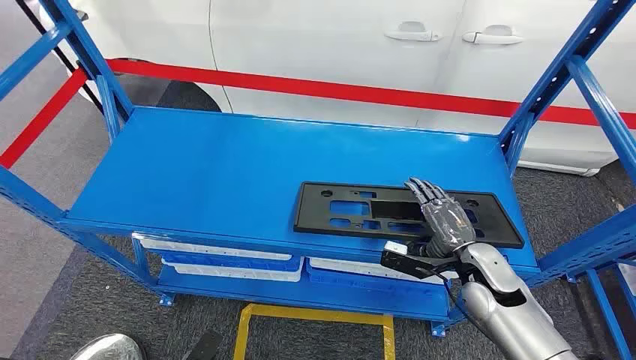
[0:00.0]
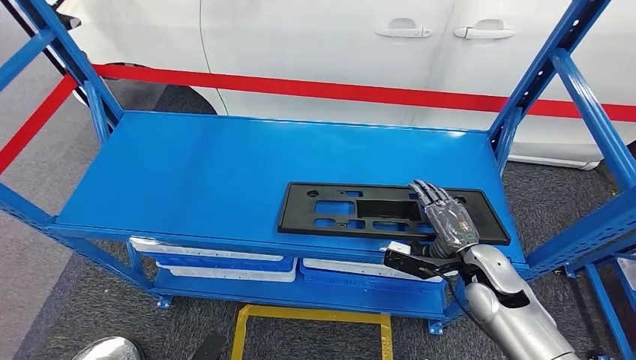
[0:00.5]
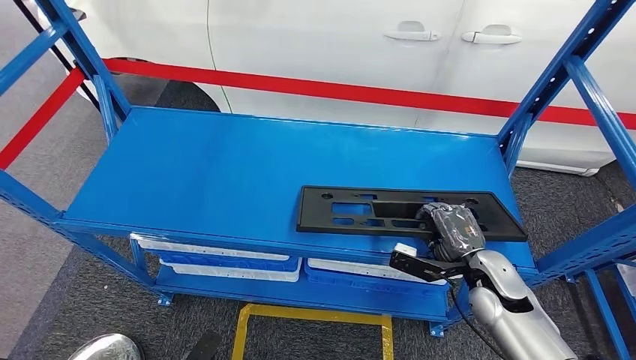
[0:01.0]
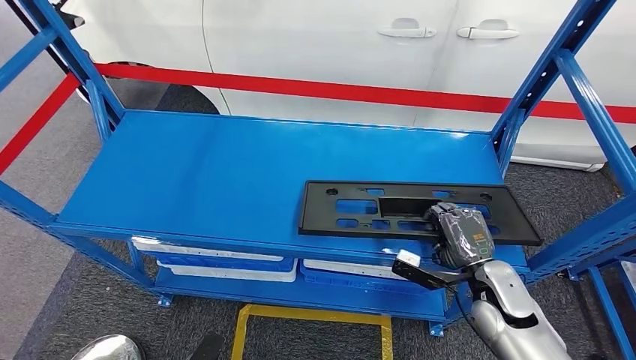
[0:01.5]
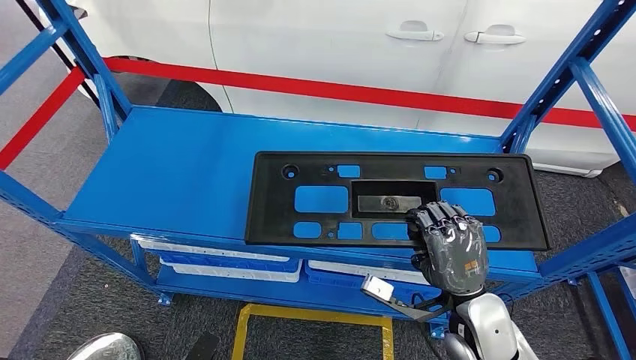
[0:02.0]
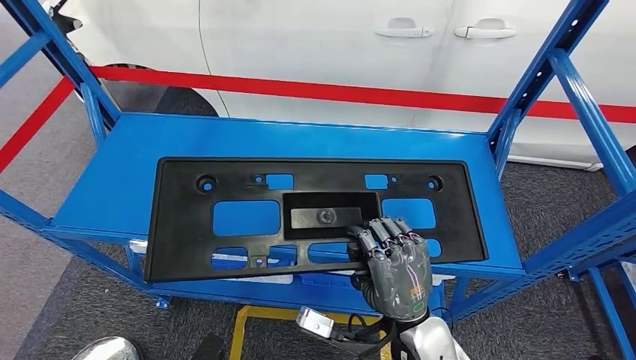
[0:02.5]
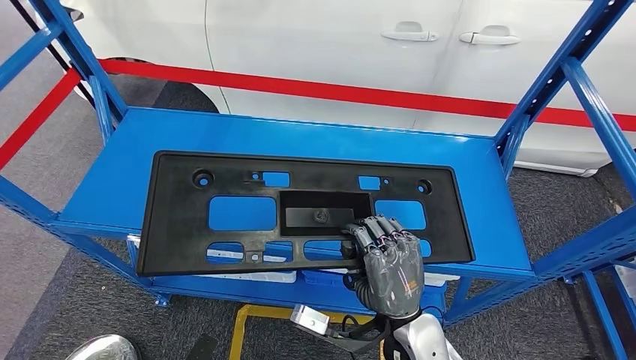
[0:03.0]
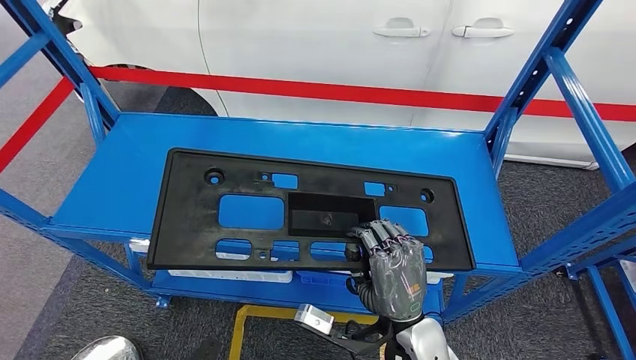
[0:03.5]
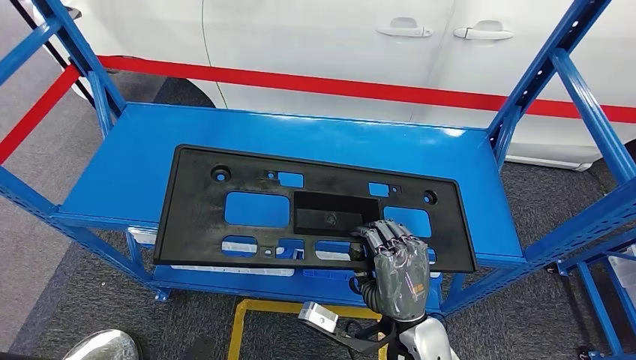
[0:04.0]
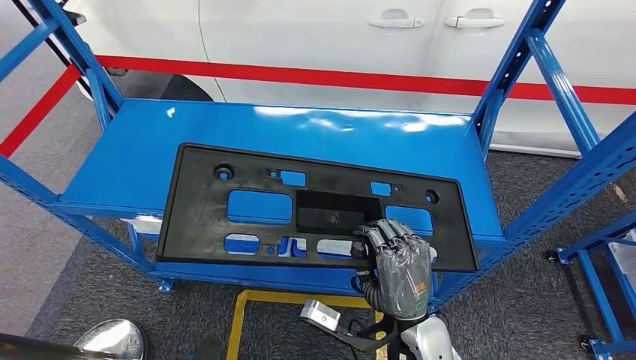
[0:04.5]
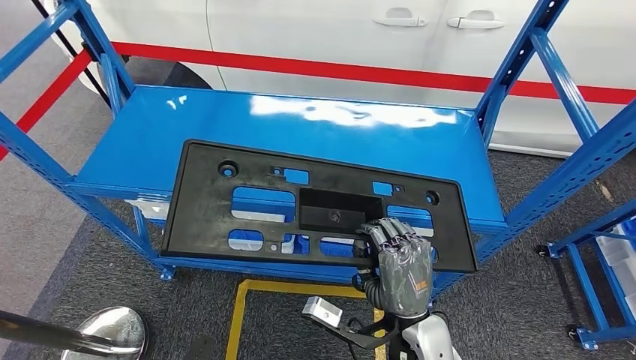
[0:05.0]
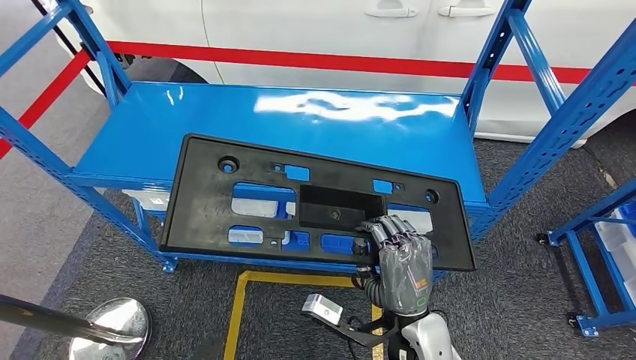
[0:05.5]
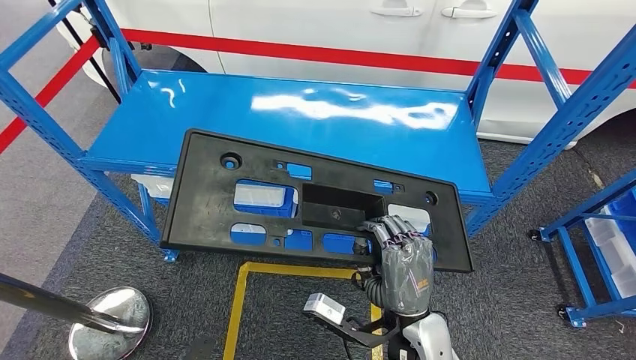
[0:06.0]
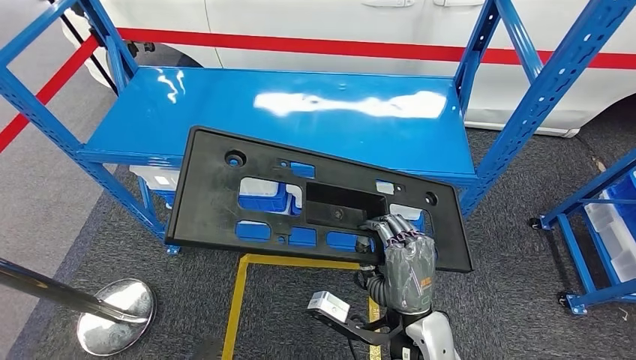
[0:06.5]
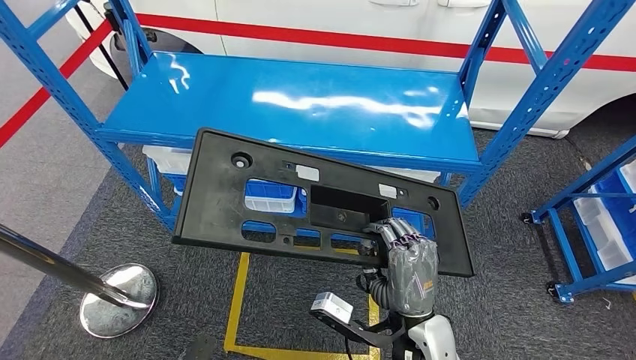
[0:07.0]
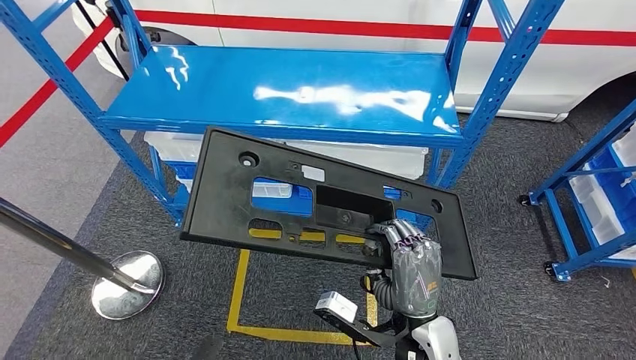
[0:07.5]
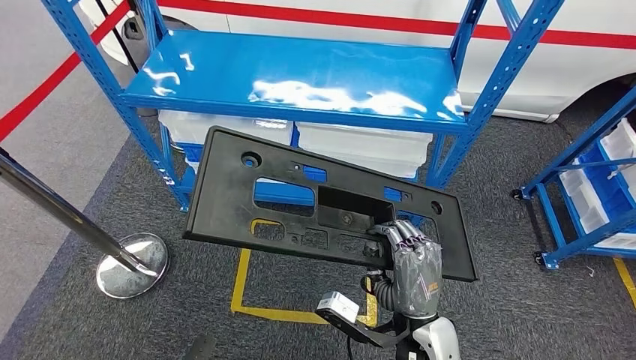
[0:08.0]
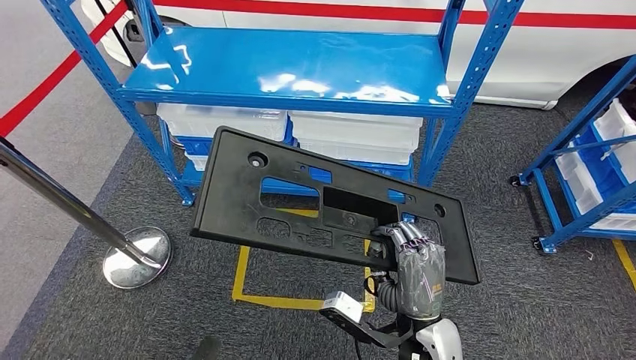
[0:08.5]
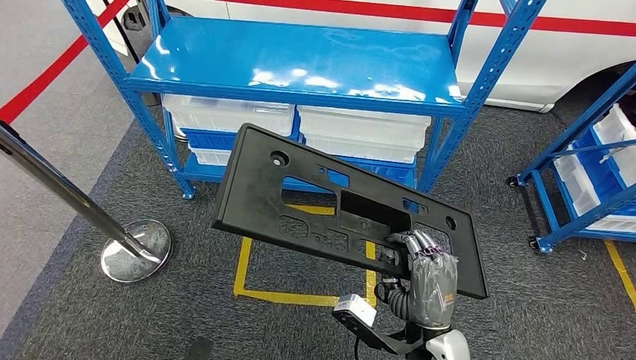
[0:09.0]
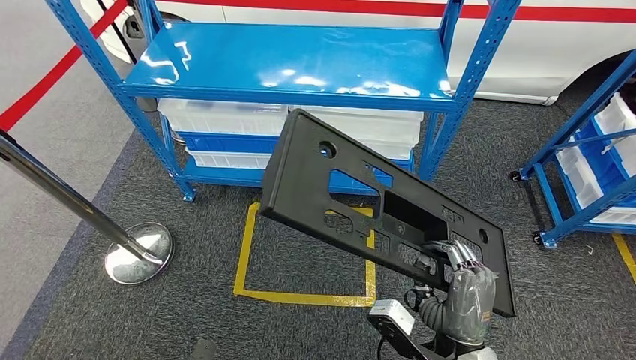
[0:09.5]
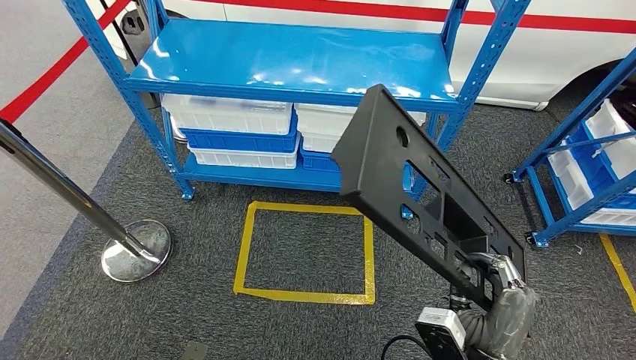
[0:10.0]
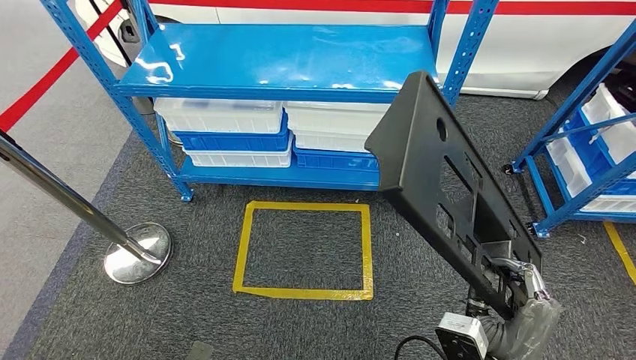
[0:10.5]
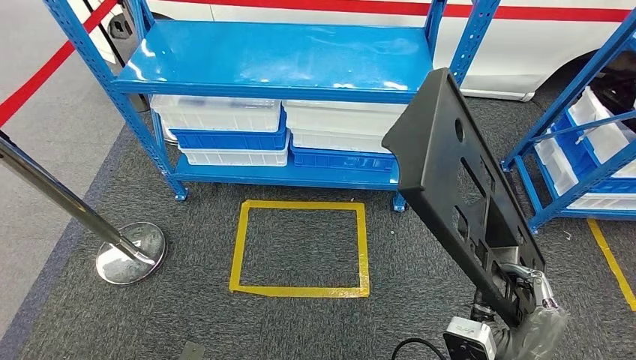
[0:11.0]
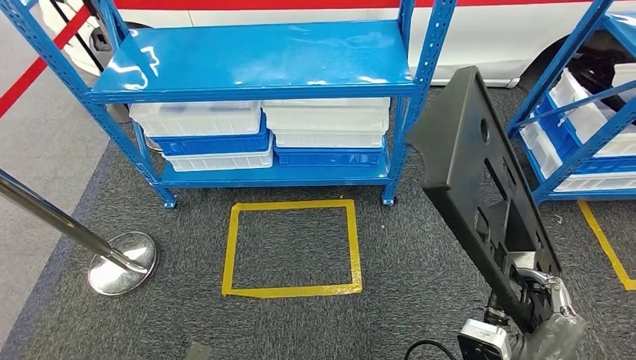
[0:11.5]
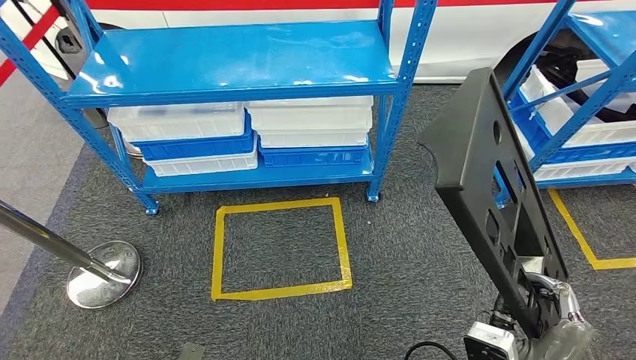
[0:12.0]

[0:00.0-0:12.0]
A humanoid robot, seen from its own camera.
Step, 0:00.0 to 0:09.5: Pick up the large material from the shelf.

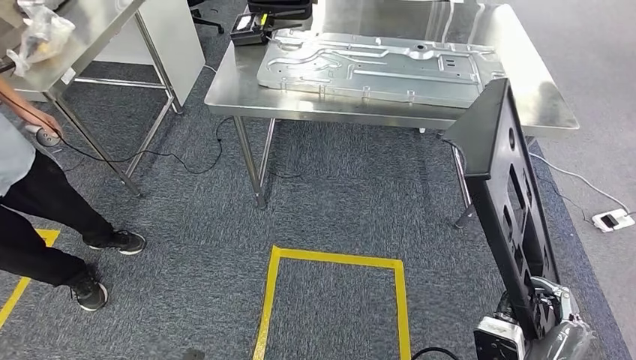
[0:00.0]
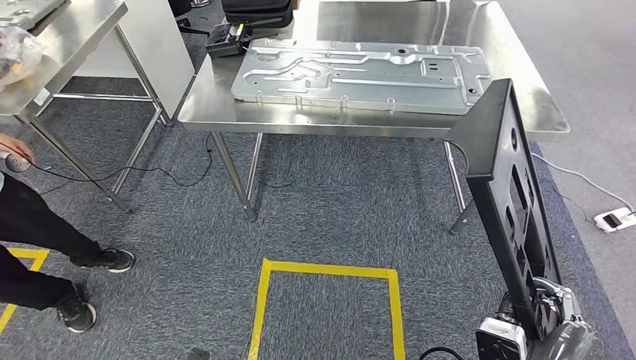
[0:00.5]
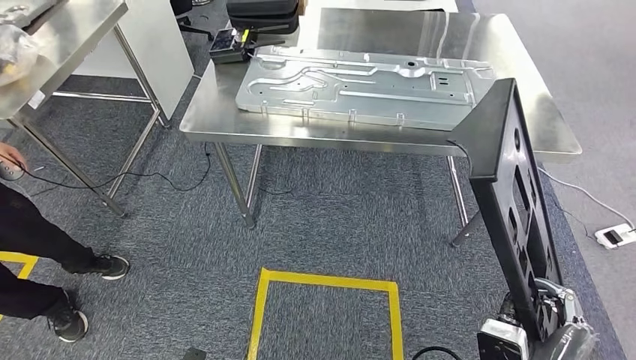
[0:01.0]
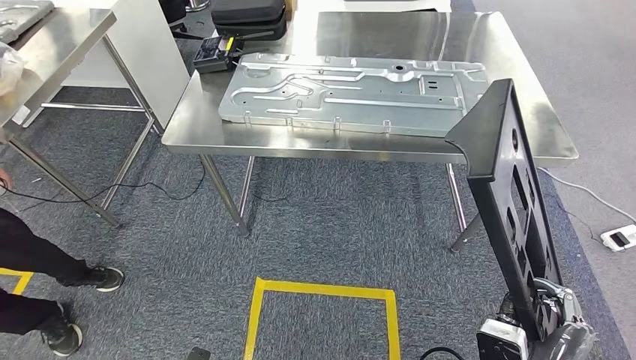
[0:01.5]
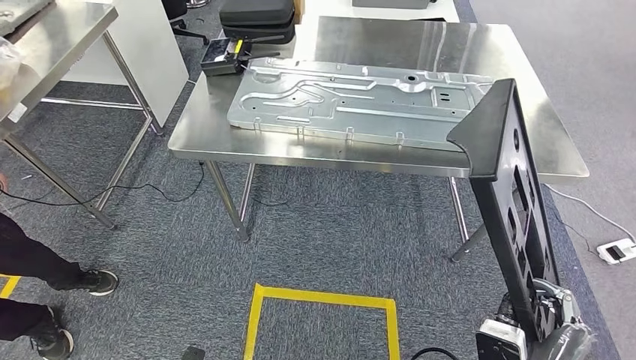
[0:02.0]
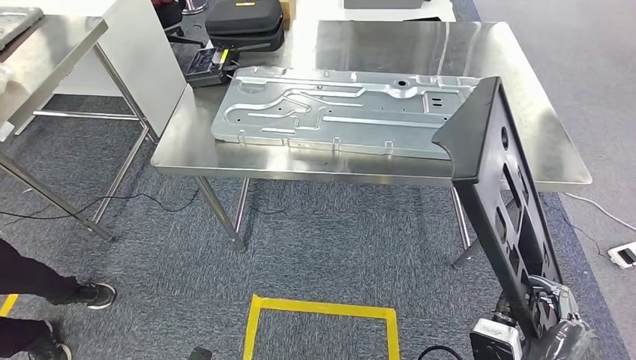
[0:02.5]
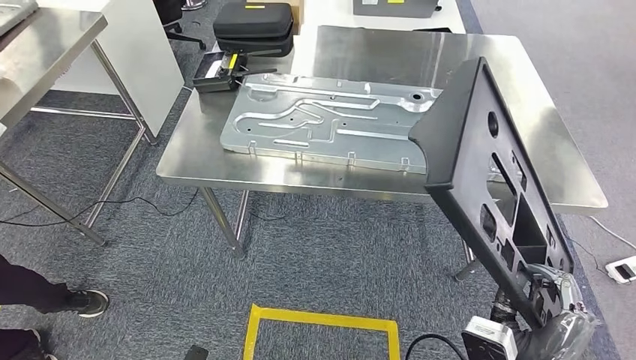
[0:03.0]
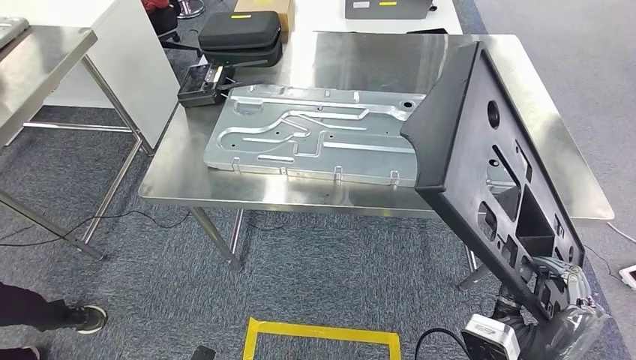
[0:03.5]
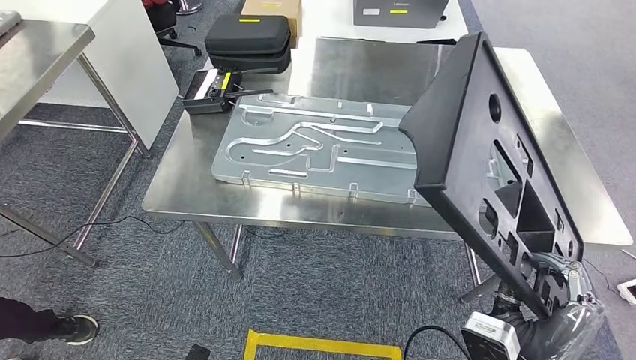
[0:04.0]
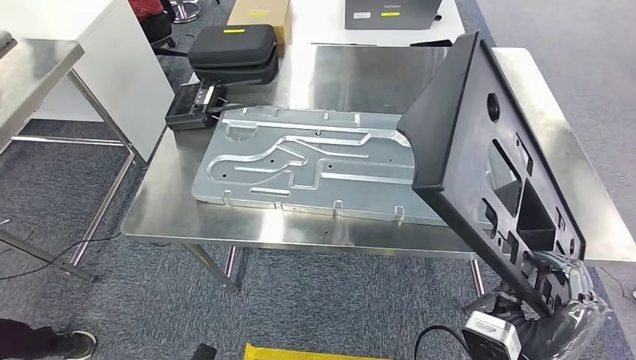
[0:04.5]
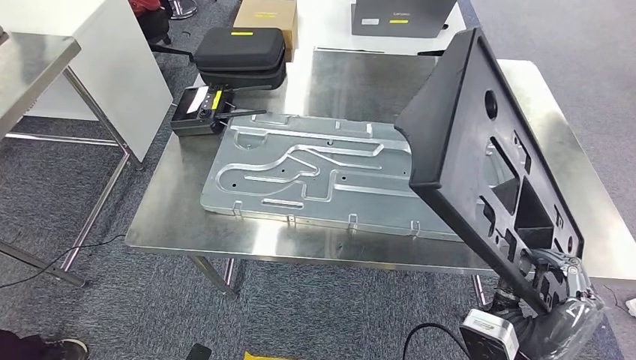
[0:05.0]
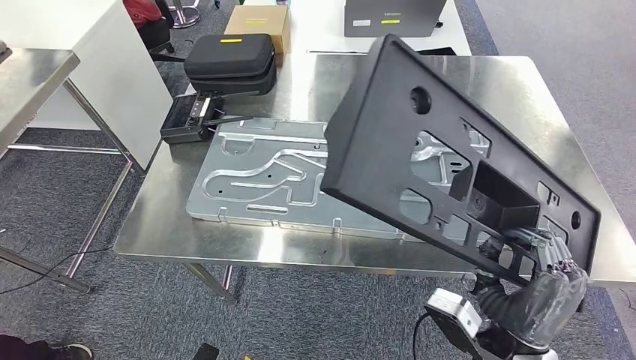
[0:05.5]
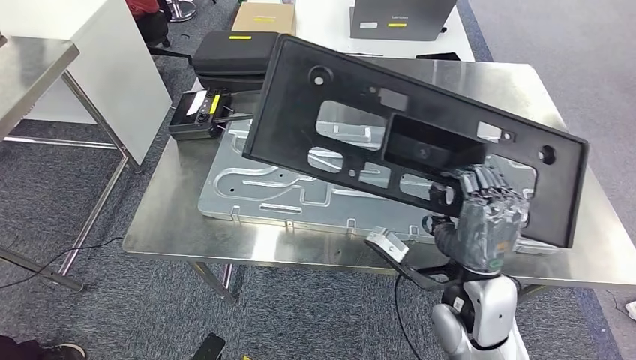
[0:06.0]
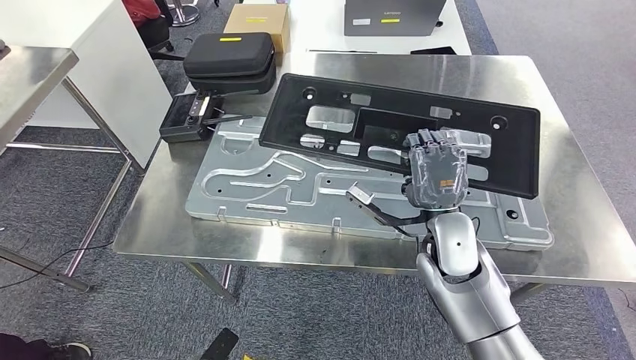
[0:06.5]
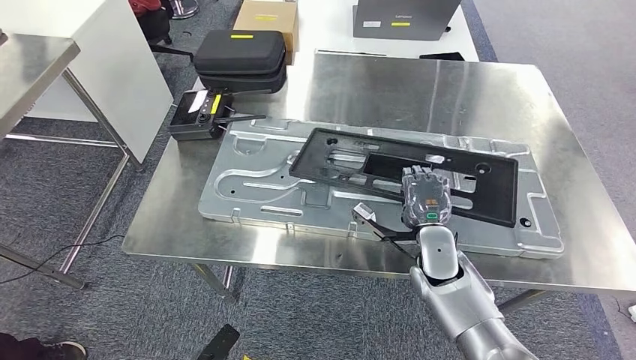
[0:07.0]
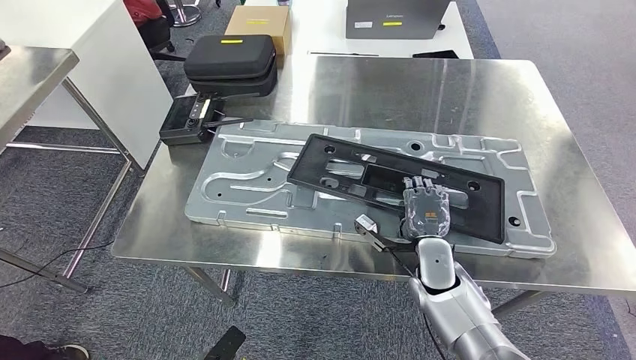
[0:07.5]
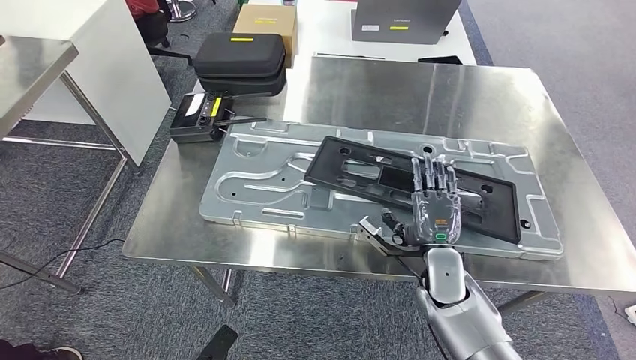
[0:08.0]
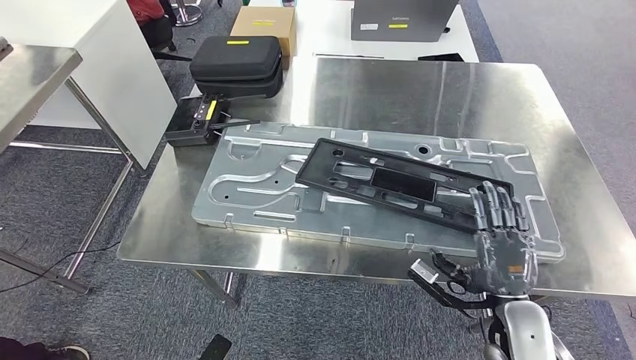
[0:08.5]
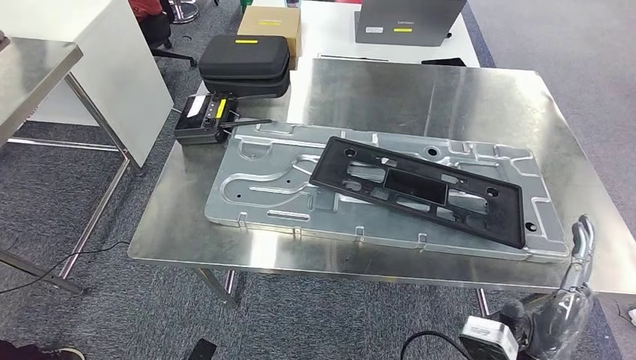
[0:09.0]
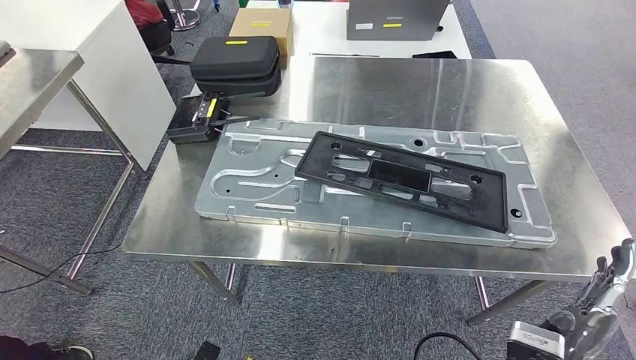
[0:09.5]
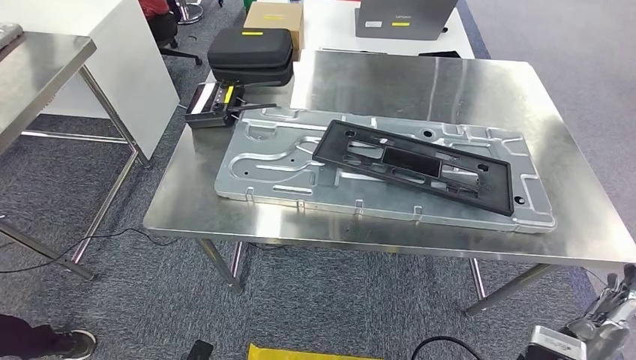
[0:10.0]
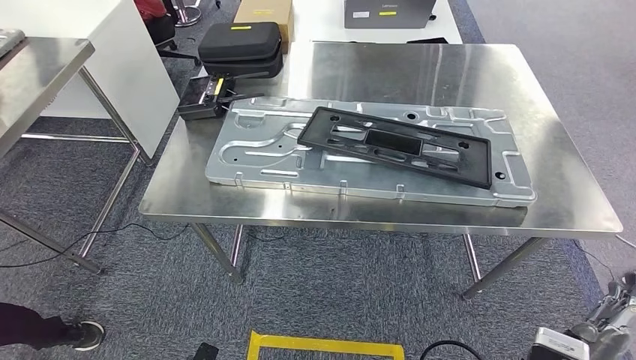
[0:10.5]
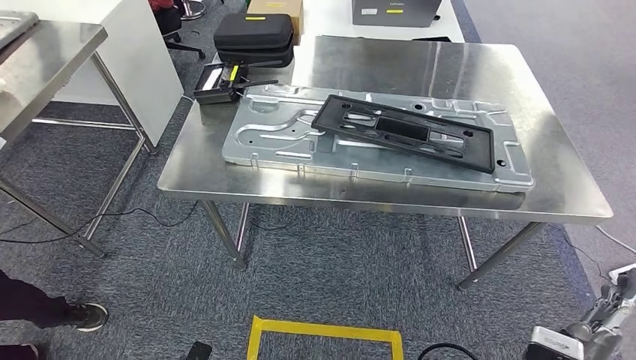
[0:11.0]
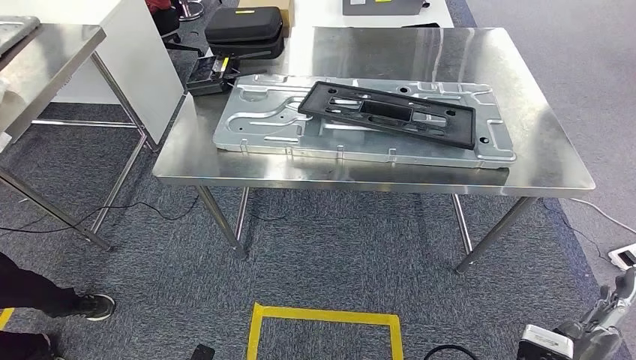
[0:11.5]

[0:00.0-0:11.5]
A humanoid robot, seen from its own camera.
Step, 0:00.0 to 0:04.5: Move the large material to the workbench.
Step, 0:06.0 to 0:10.0: Insert the large material into the corresponding slot on the workbench.
